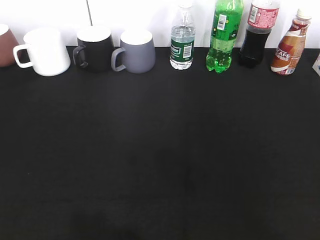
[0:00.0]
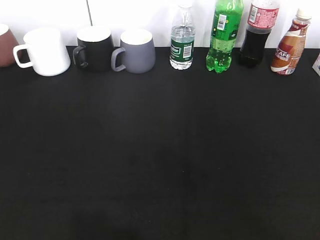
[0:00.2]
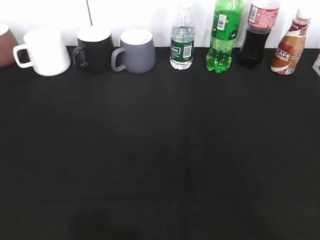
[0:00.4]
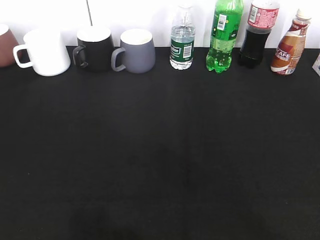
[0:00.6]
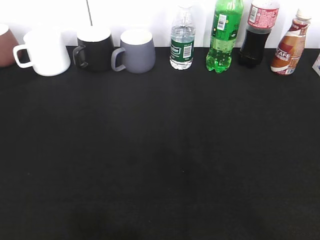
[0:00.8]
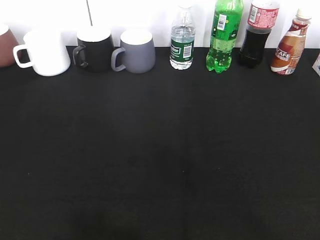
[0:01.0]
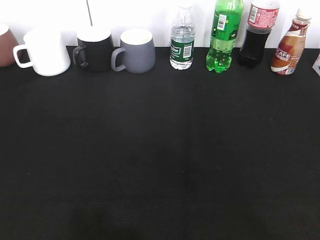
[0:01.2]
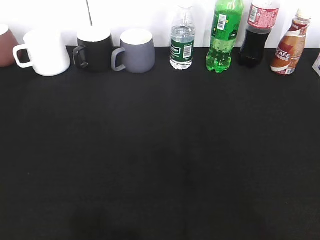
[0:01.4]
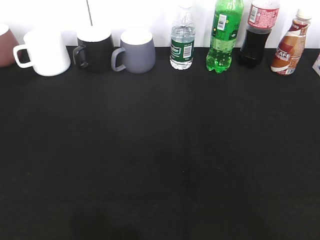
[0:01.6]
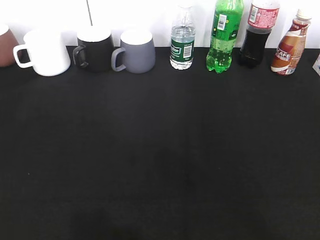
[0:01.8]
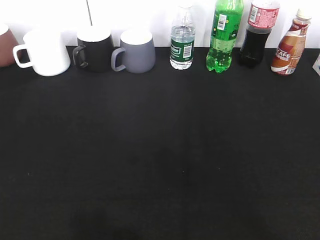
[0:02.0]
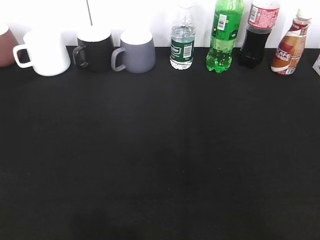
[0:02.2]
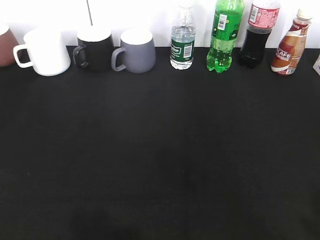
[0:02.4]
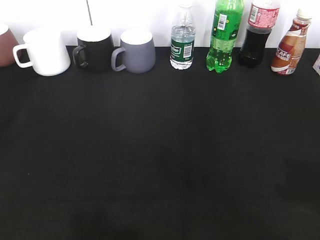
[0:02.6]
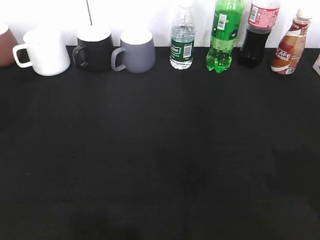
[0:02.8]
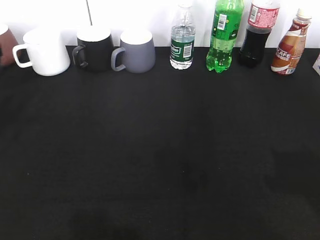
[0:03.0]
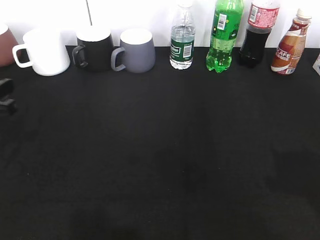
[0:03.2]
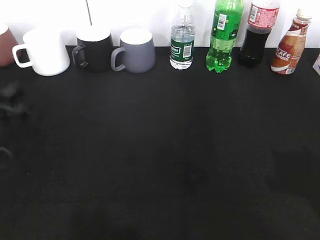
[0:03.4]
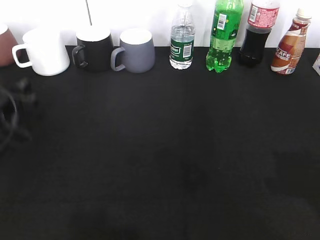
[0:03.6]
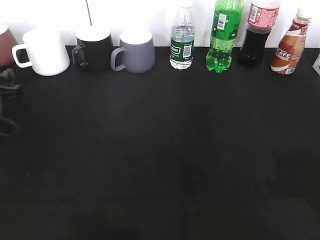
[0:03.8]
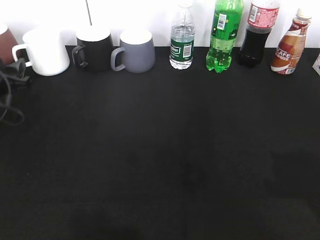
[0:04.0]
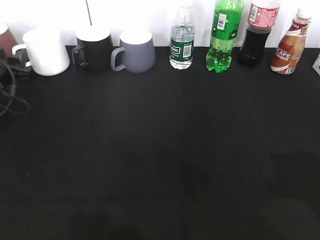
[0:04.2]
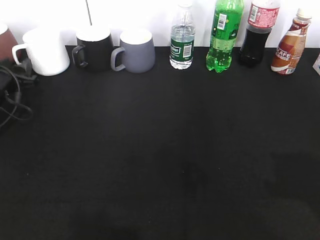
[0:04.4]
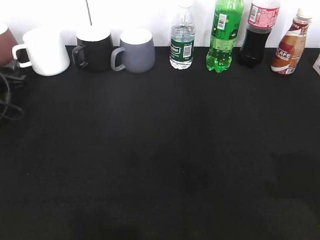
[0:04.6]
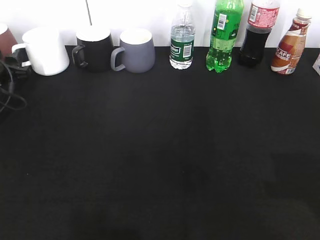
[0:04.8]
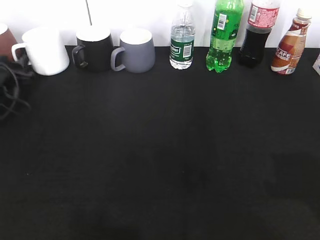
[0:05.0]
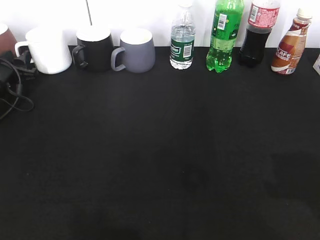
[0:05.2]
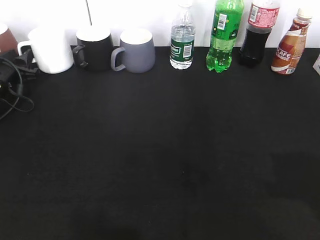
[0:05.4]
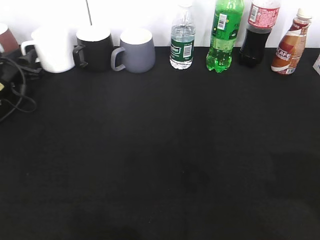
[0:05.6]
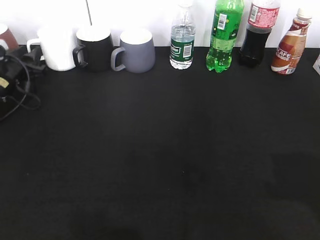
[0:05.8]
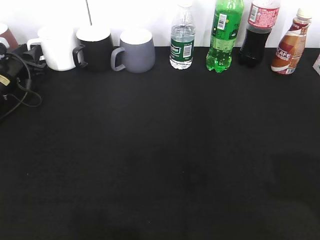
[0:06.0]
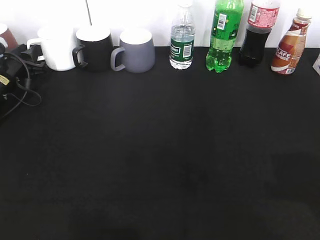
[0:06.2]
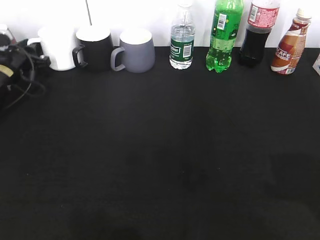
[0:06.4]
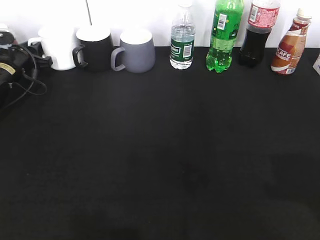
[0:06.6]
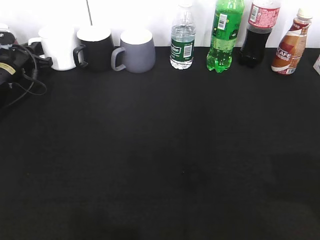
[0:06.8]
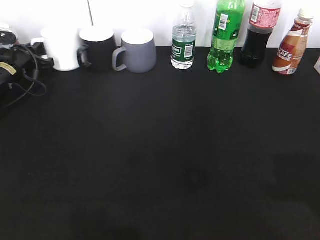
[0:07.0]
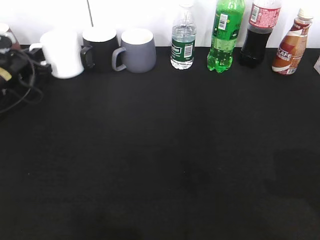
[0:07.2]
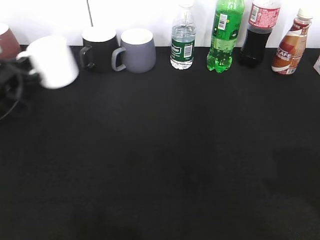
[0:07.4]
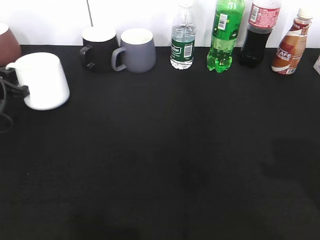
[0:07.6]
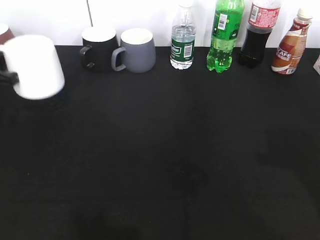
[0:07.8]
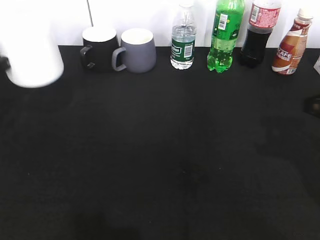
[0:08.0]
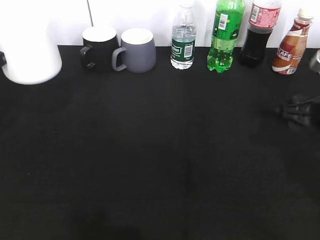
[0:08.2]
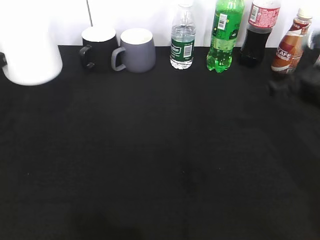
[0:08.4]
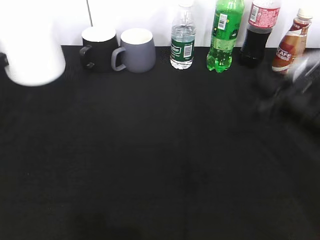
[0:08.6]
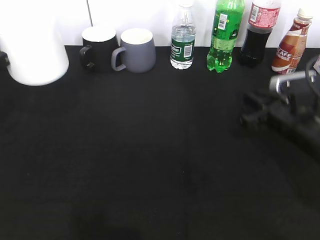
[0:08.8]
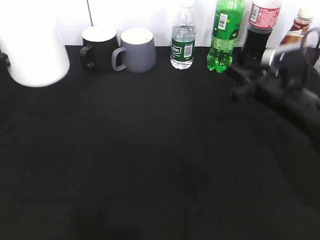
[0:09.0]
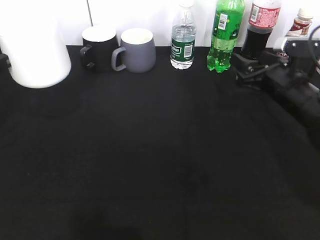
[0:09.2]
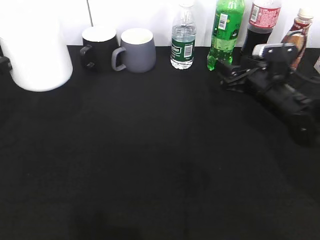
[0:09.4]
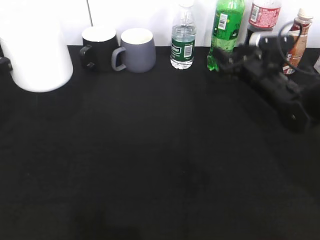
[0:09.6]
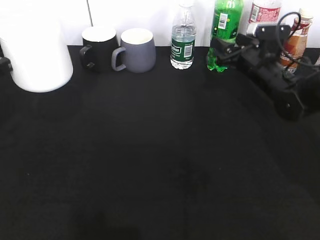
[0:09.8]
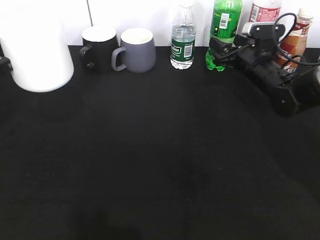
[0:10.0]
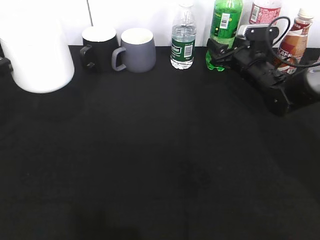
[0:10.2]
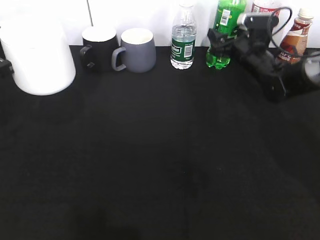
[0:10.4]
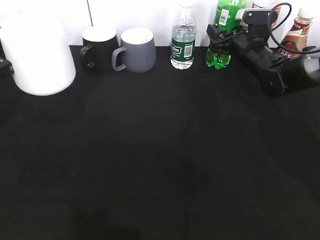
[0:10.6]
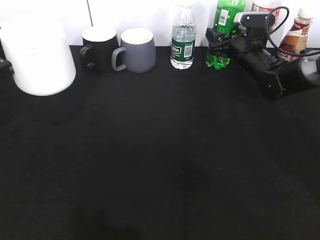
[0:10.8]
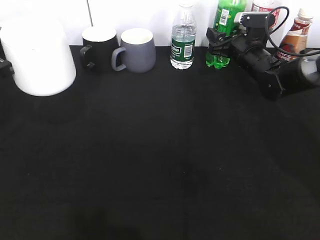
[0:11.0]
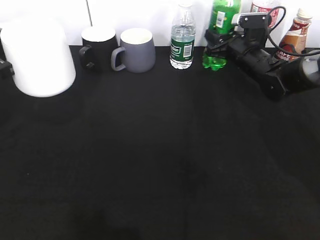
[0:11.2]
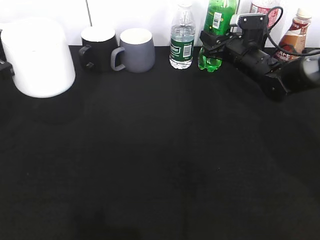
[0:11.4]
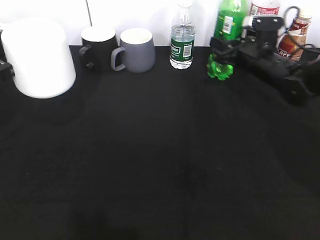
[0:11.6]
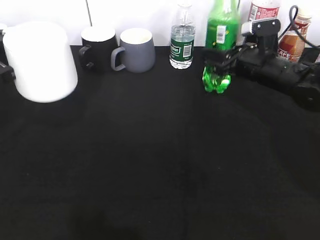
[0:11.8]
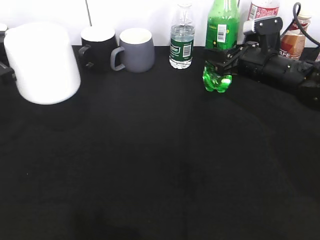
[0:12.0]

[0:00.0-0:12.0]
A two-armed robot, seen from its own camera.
Step, 0:00.0 to 0:06.6: Grasp the white cup with left gripper.
Step, 0:07.0 to 0:08.0: Lift the white cup with left gripper.
Step, 0:08.4 to 0:10.6: Grasp the bottle with sprite with right gripper.
0:01.6 to 0:03.0: The left gripper goes roughly 25 cm forward, and closes its fingers.
0:03.0 to 0:04.4: The left gripper is displaced forward and downward by some 20 cm.
0:04.4 to 0:06.0: The left gripper heads forward, covering approximately 5 cm.
0:06.0 to 0:07.6: The left gripper moves backward, roughly 10 cm, and closes.
0:07.6 to 0:09.0: The right gripper goes approximately 25 cm forward and downward; the left gripper travels upward and backward by about 10 cm.
0:09.0 to 0:10.4: The right gripper heads forward, covering approximately 15 cm.
0:10.4 to 0:12.0: The right gripper shifts roughly 5 cm backward, and closes its fingers.

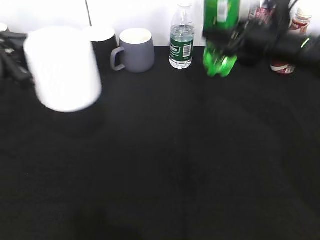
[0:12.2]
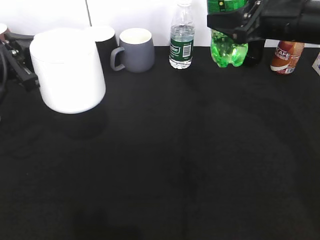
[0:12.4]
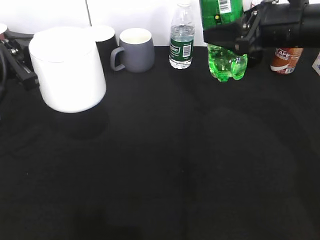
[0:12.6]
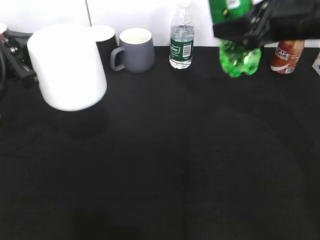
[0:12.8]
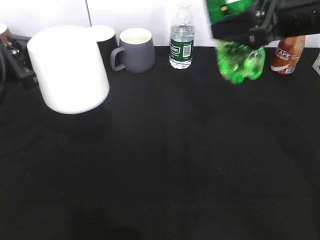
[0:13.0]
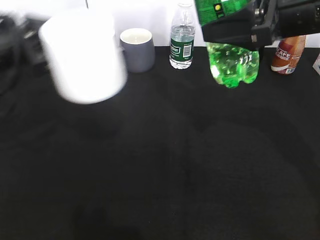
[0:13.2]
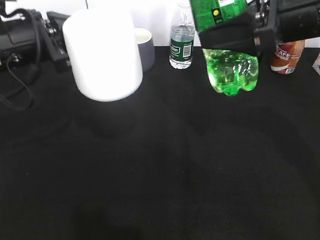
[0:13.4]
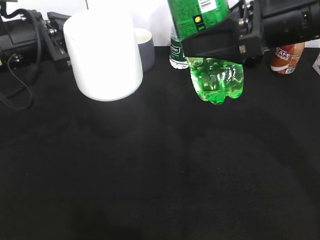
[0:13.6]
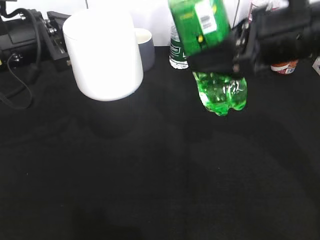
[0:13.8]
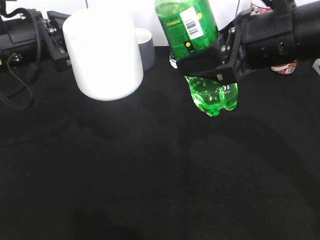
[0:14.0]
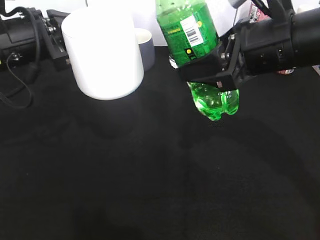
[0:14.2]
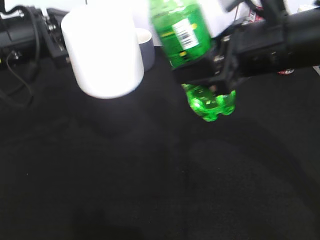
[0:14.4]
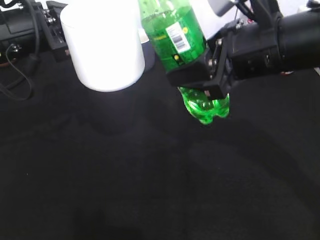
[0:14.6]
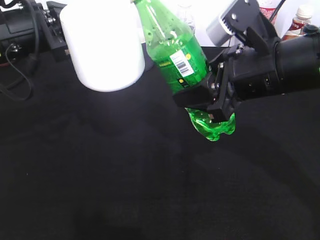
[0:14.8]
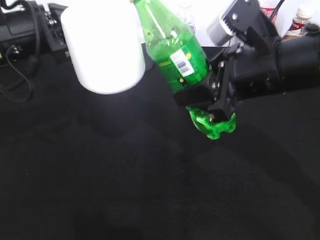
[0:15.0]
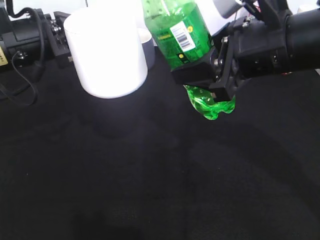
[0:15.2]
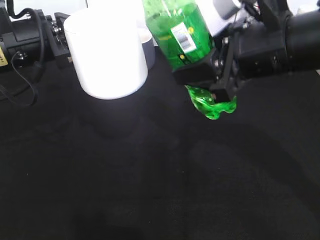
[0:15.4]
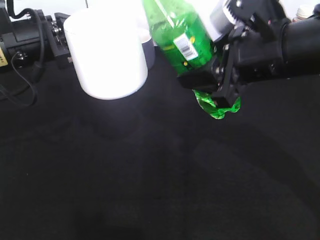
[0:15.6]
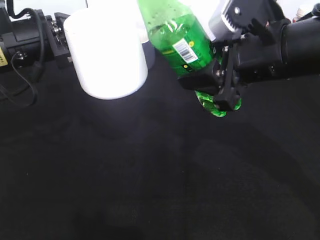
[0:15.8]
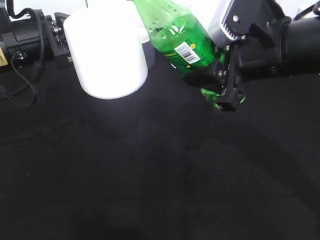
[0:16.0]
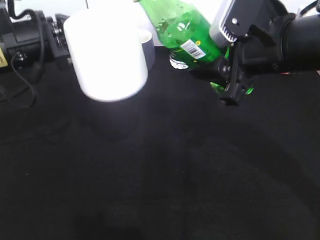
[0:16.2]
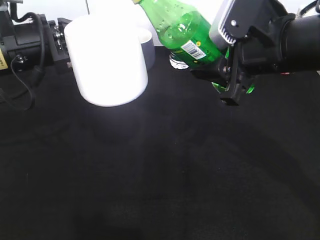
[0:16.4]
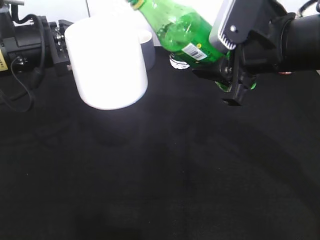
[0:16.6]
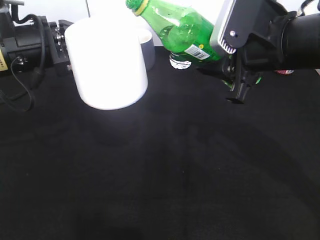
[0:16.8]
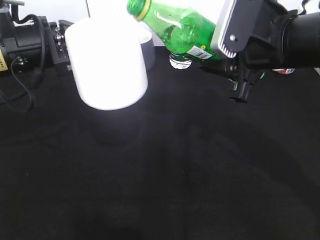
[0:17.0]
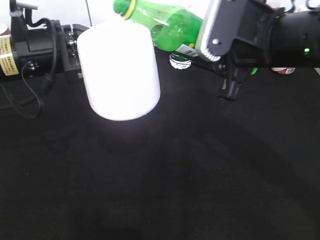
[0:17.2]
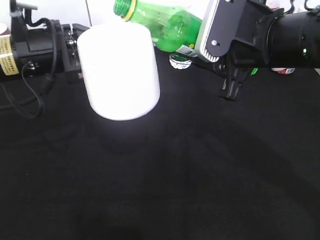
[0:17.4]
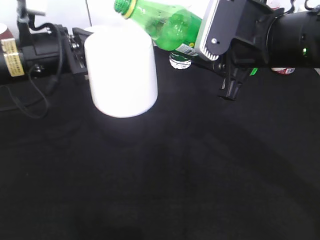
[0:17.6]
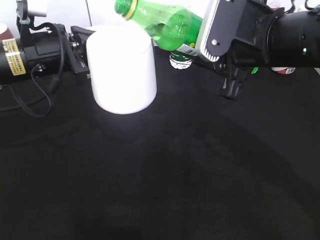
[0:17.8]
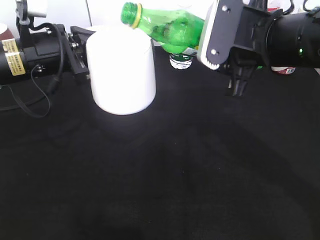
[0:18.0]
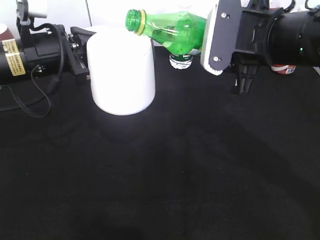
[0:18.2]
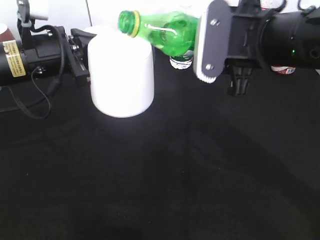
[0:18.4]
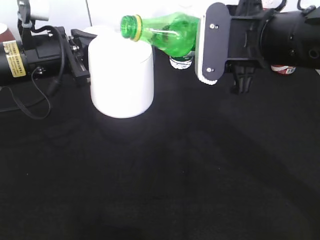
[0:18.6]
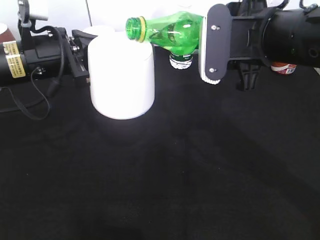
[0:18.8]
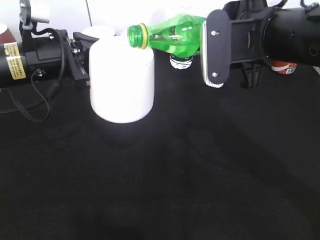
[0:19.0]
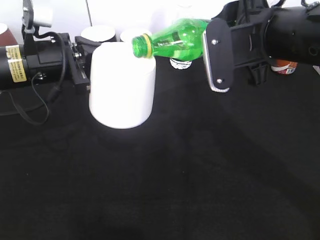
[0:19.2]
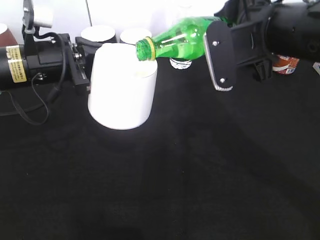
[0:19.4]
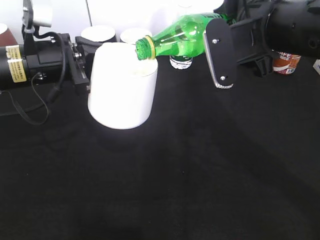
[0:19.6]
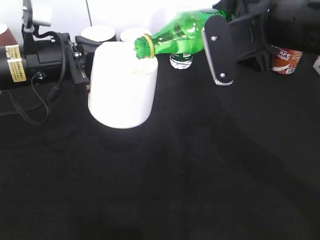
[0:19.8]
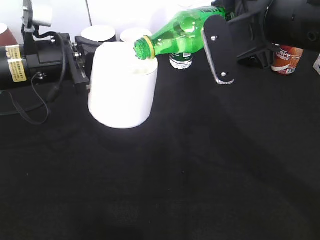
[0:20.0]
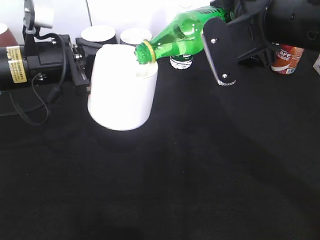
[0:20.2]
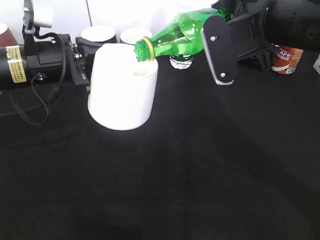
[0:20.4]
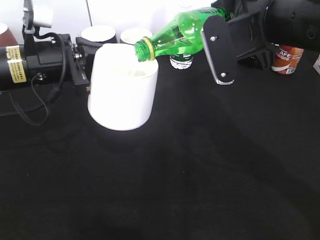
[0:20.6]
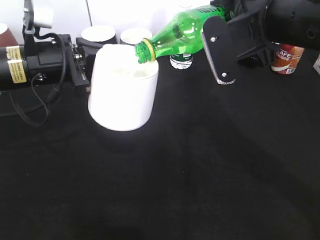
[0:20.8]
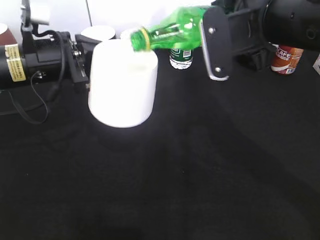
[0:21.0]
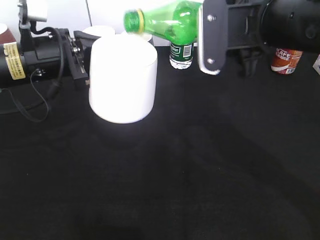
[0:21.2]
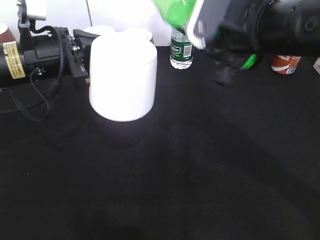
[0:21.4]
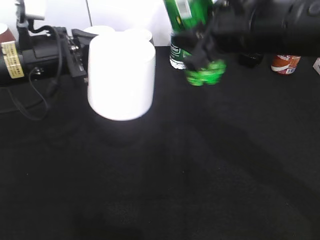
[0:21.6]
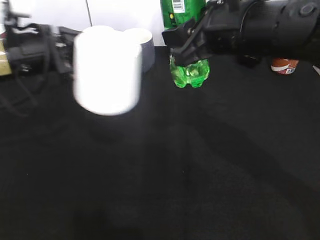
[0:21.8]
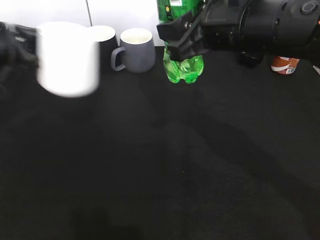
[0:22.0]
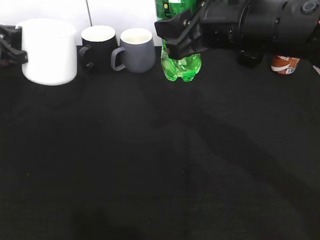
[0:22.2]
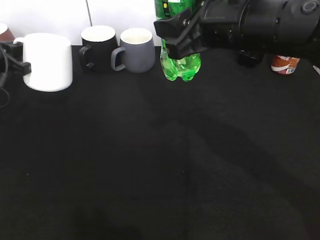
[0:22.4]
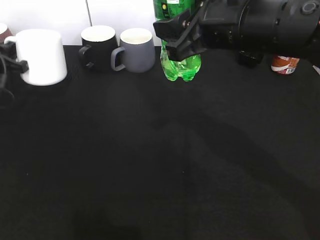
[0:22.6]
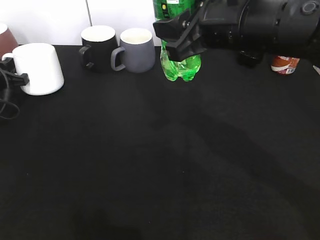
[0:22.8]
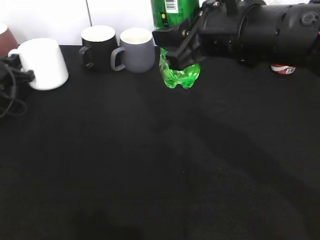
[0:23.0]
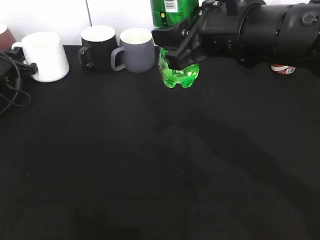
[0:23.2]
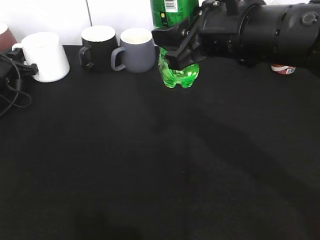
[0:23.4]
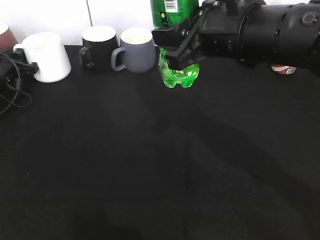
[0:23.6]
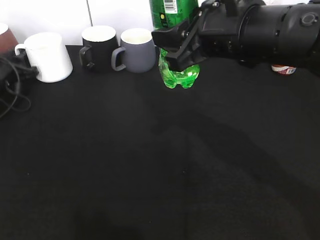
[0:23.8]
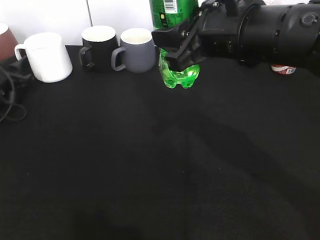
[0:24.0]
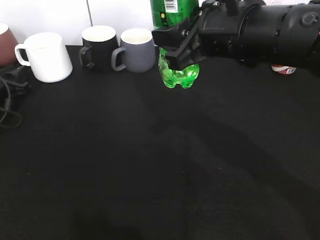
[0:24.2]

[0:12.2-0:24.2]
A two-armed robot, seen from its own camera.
Step, 0:12.2 to 0:20.0: Pour the sprite from bottle to cup with right gripper.
0:12.2 to 0:13.8: The right gripper moves backward and upward, approximately 15 cm; the left gripper heads to the right, covering roughly 5 cm.
0:13.8 to 0:15.2: The grippers move only a little.
0:19.8 to 0:21.2: The grippers move only a little.
0:21.2 to 0:22.6: The left gripper moves to the left, forward and downward, some 20 cm.
0:22.6 to 0:24.2: The left gripper goes some 5 cm downward, and opens.
